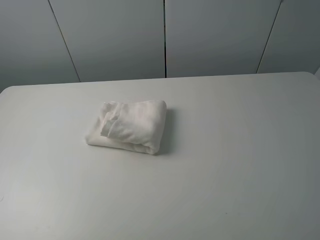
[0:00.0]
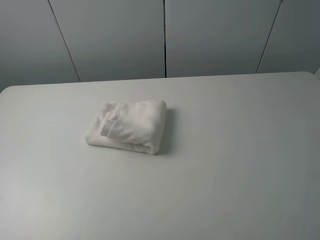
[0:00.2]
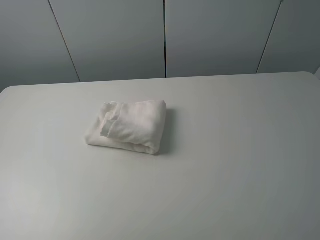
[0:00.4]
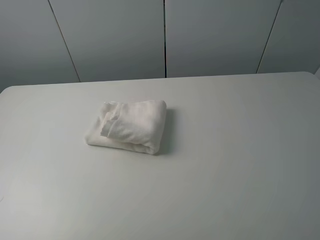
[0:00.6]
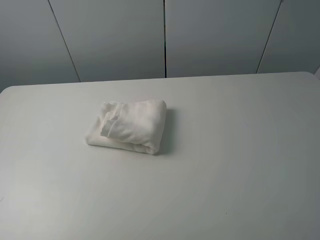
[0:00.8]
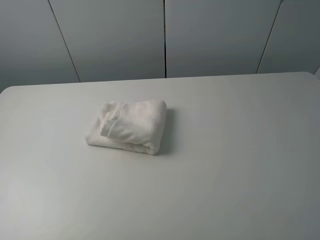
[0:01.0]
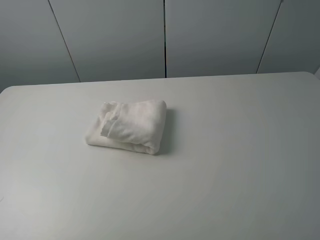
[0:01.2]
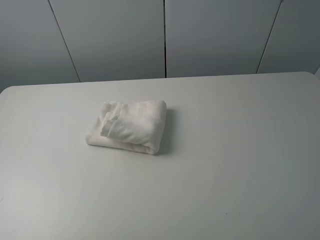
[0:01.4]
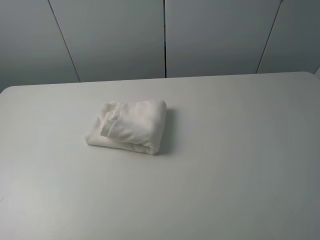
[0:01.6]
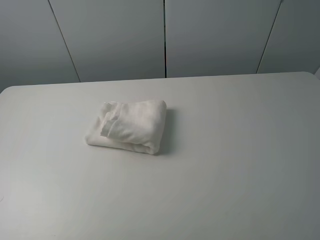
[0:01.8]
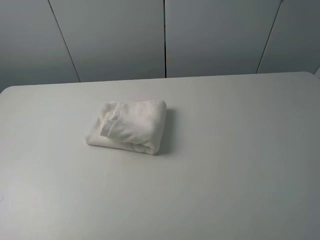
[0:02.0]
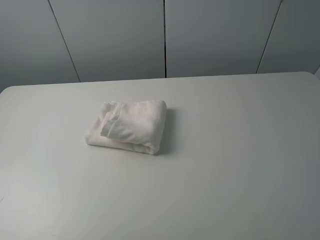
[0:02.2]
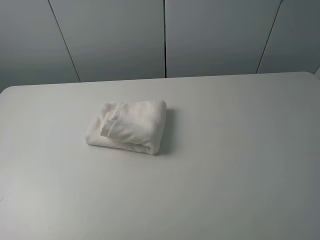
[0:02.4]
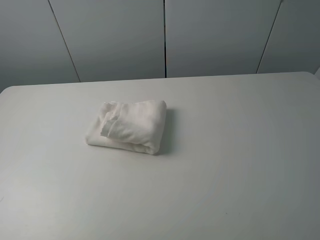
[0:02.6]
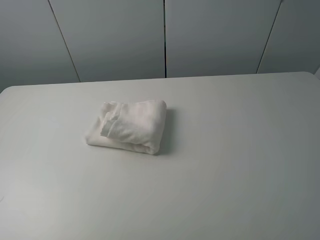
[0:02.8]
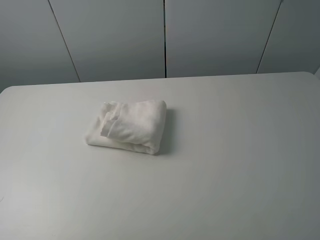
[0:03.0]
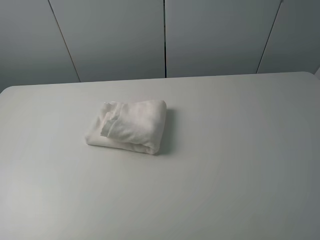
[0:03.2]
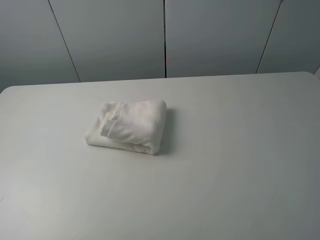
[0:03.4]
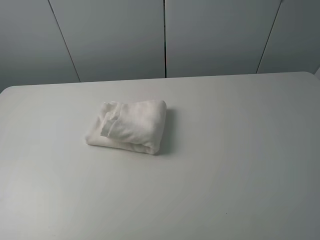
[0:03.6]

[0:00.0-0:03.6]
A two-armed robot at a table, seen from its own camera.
Task of the whole recording: fold the towels on the table.
0:01.8 to 0:03.6: Both grippers stay about where they are.
